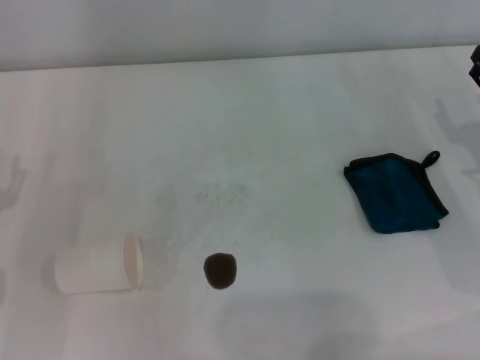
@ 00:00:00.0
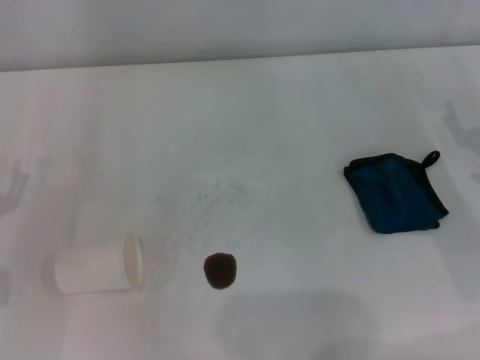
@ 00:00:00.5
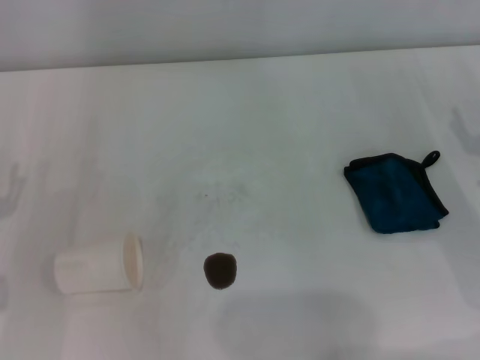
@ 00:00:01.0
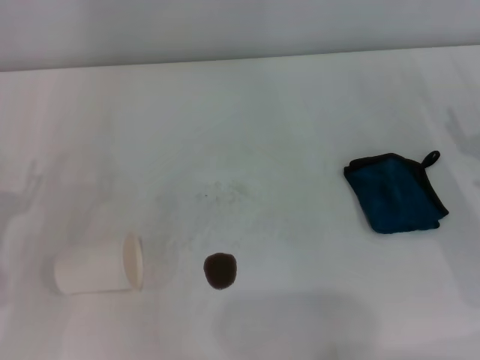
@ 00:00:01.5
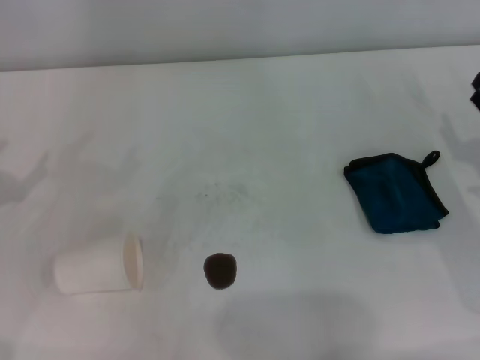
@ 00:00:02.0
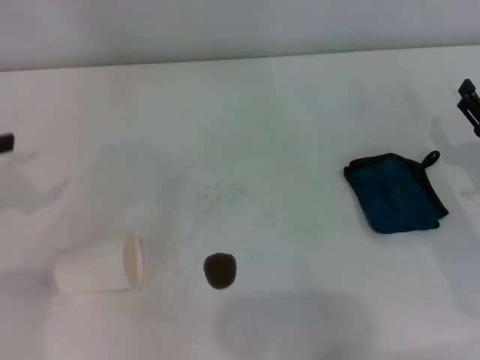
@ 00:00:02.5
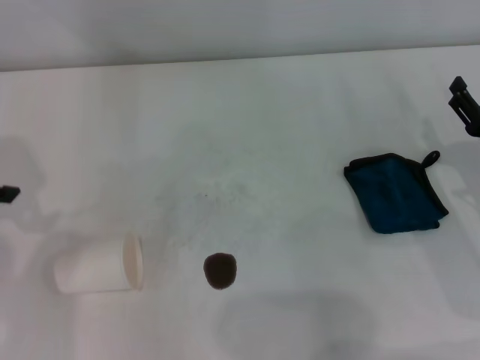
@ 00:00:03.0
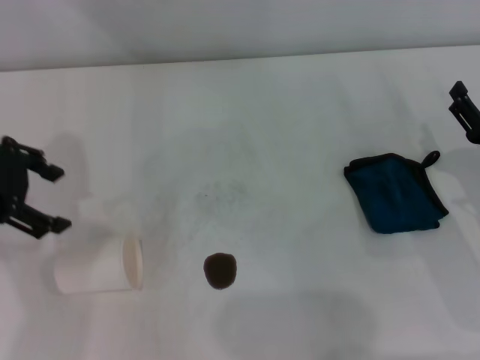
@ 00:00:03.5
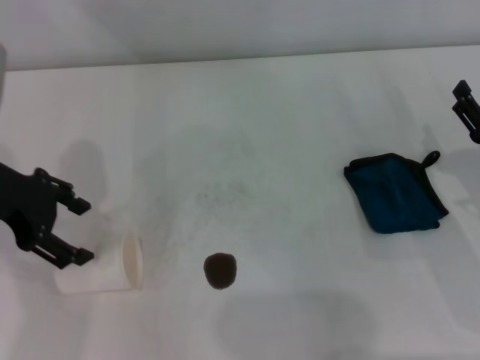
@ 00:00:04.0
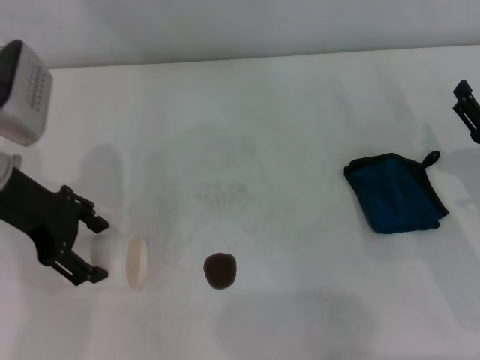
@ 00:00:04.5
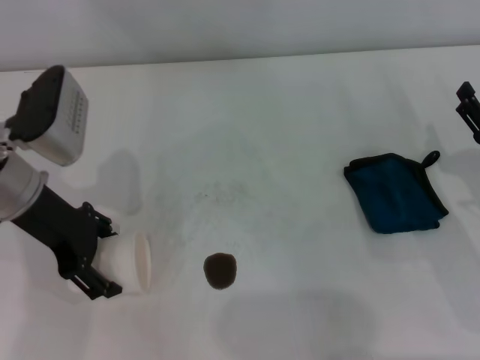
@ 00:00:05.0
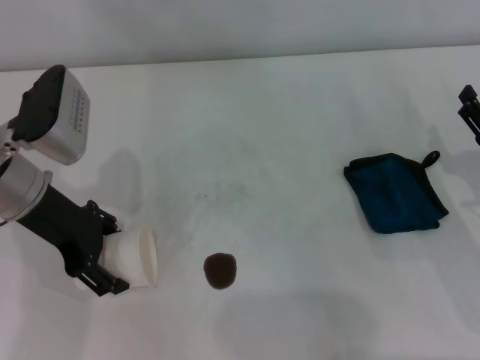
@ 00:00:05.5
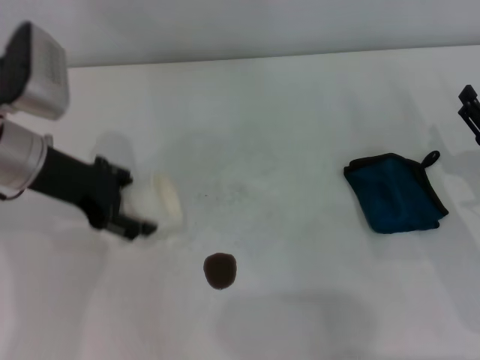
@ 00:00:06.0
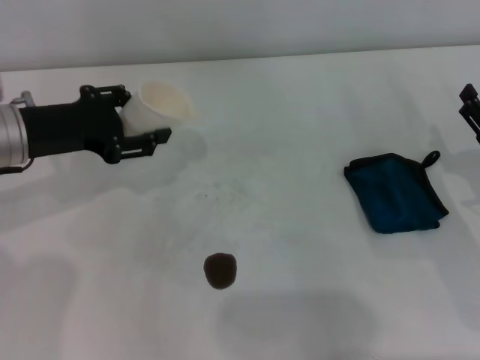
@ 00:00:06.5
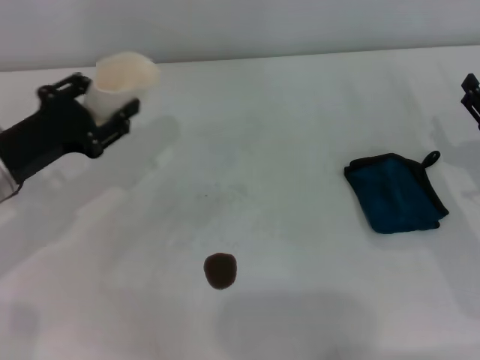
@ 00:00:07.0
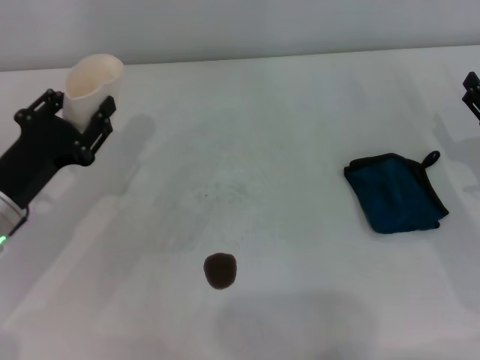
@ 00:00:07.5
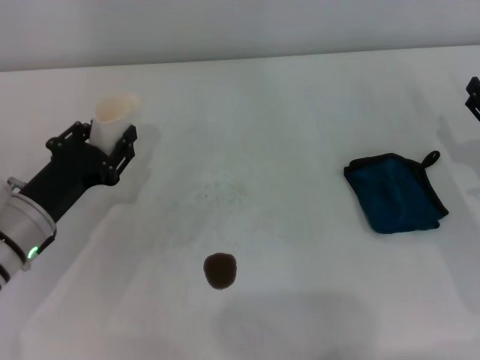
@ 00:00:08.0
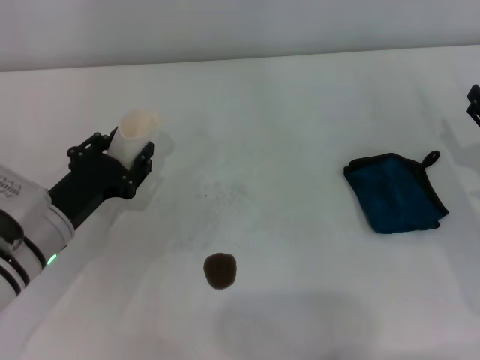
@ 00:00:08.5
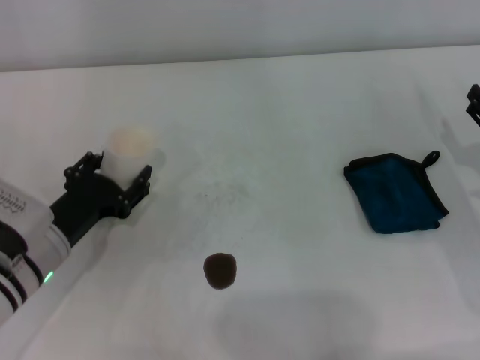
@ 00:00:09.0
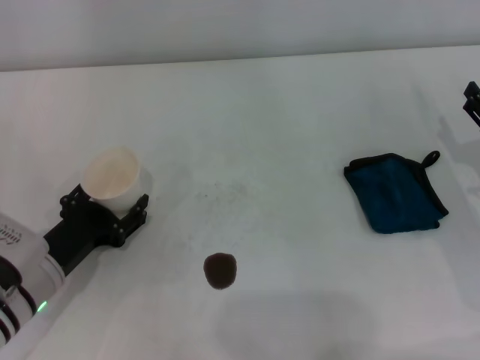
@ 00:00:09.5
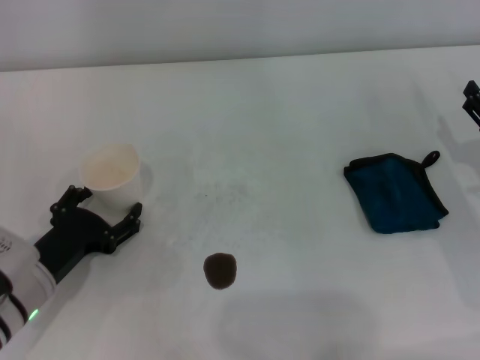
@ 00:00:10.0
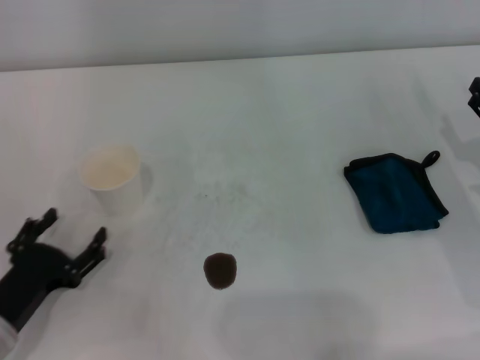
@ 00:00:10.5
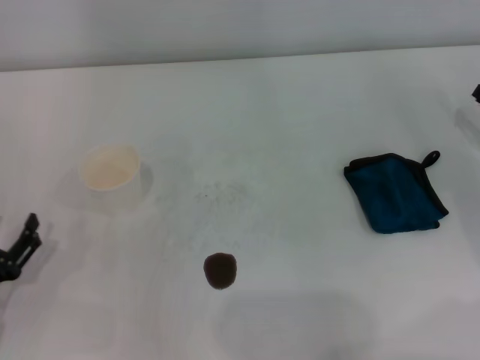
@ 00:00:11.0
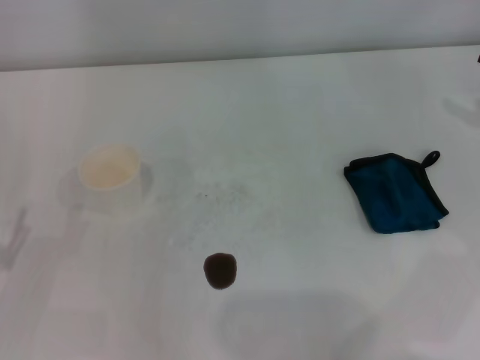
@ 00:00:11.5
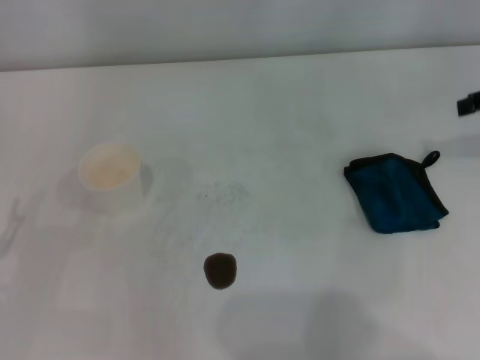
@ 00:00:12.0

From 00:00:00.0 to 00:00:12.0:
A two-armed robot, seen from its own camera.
Step, from 00:00:00.0 to 00:00:05.5: Grasp the paper cup with the left gripper.
Step, from 00:00:06.0 to 00:00:09.5: Stand the paper cup upright with the left gripper.
From 00:00:02.0 to 00:00:04.0: The left gripper goes roughly 15 cm to the right, upward and forward.
From 00:00:04.0 to 00:00:06.0: The left gripper moves some 5 cm.
From 00:00:06.0 to 00:00:08.0: The left gripper moves downward and backward, approximately 15 cm, and closes.
From 00:00:08.0 to 00:00:10.0: The left gripper changes place by approximately 5 cm, and opens its fingers.
From 00:00:10.0 to 00:00:12.0: The left gripper travels to the left and backward by about 10 cm, while the right gripper goes about 20 cm upward.

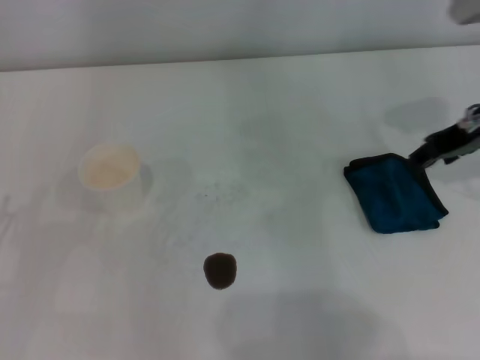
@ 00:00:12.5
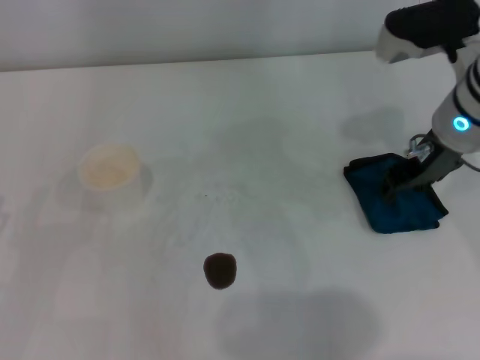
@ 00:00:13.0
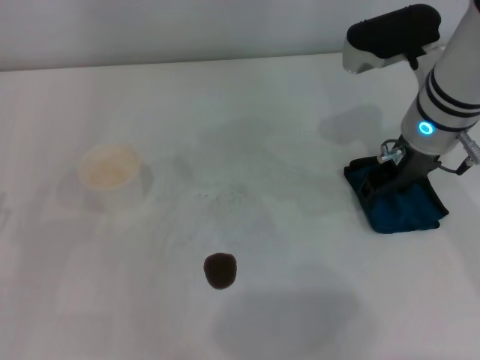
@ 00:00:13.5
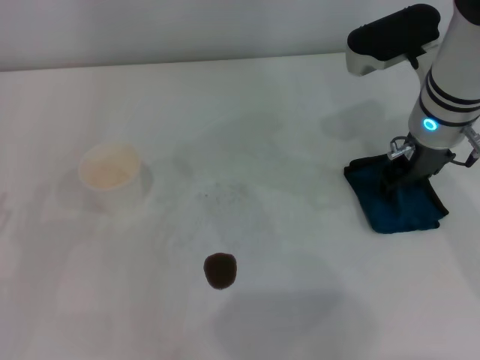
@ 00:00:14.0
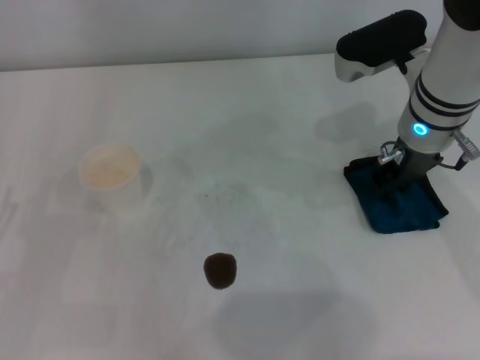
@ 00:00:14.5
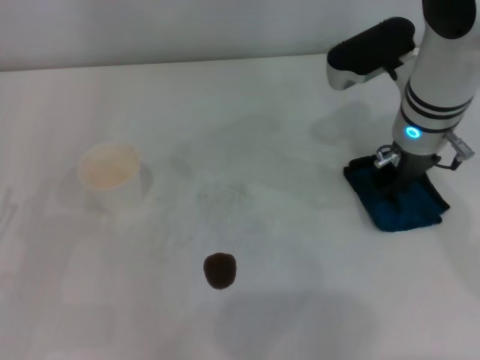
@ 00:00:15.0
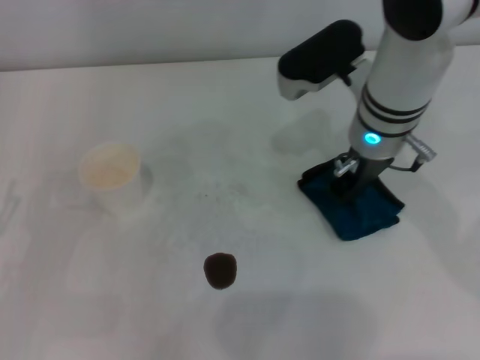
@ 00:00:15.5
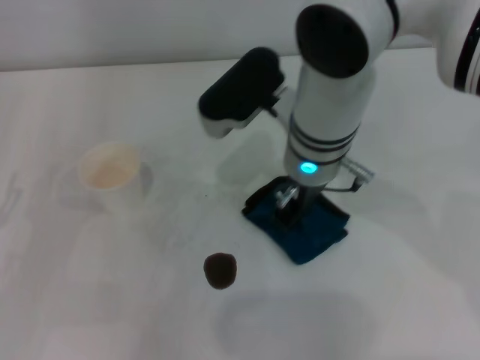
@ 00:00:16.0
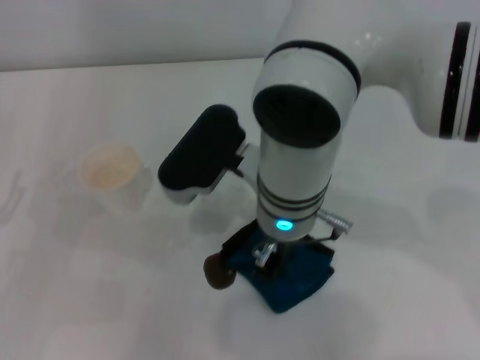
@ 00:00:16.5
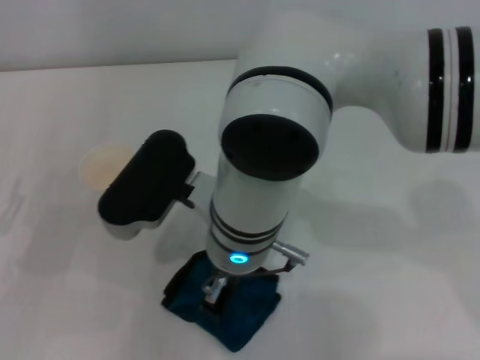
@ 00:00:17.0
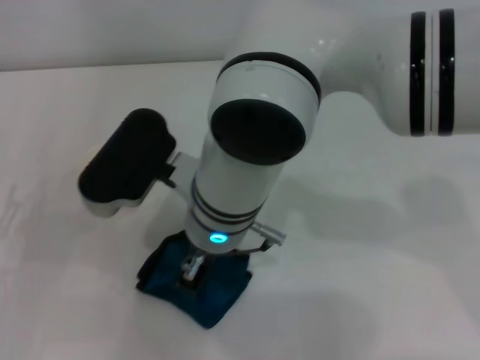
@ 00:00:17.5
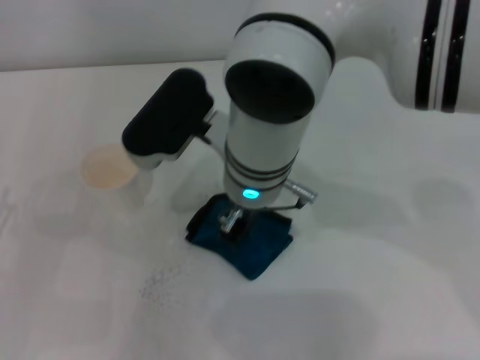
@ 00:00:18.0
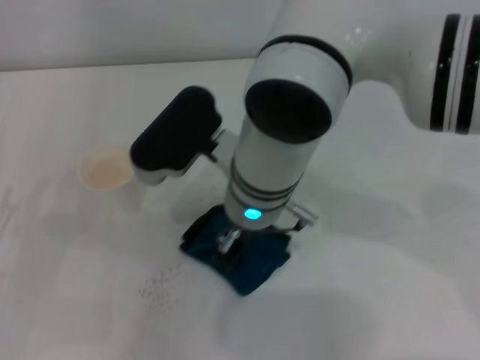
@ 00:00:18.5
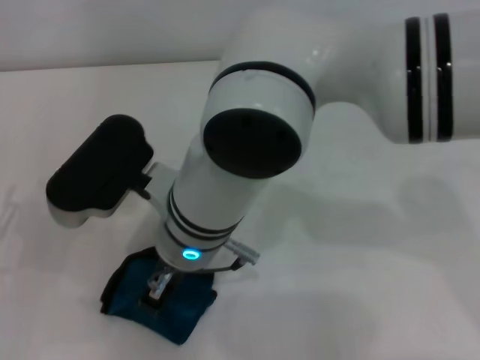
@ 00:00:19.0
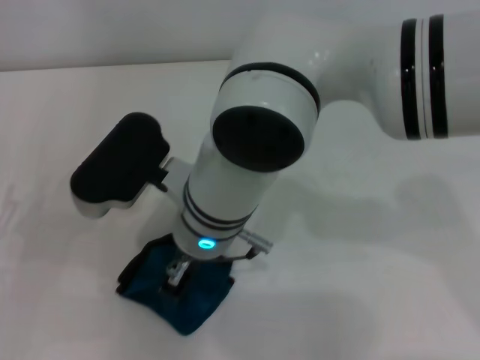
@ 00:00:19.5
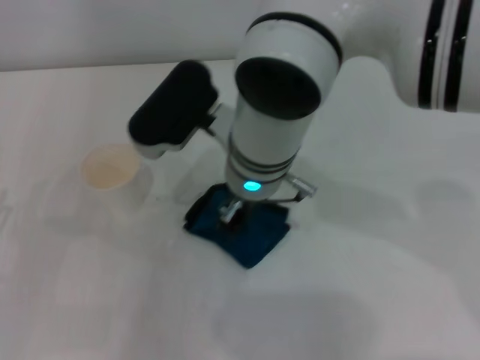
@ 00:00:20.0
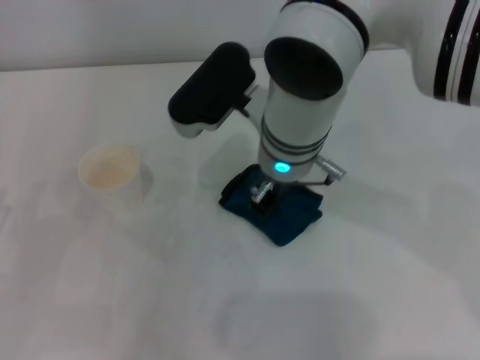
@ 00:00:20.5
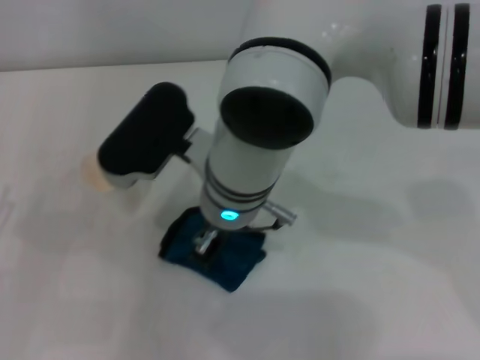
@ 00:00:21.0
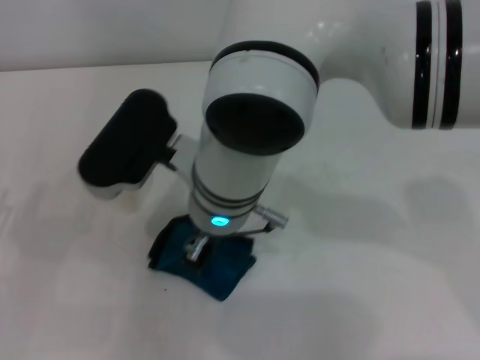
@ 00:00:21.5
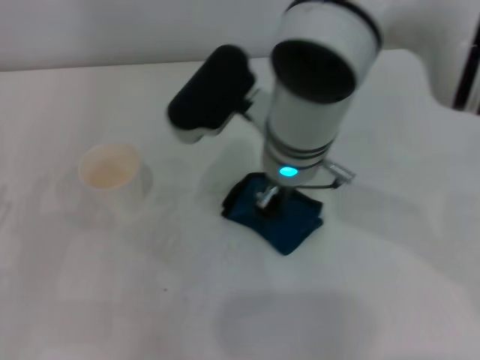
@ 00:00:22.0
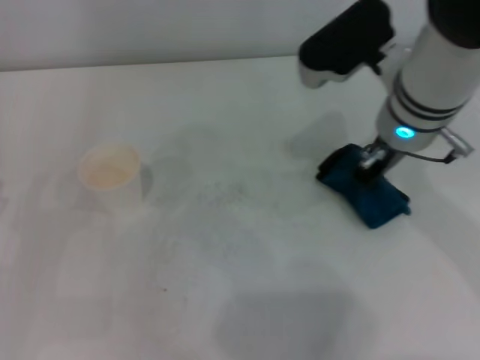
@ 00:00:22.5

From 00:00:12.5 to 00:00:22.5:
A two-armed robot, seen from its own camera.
Step, from 00:00:12.5 to 00:00:14.5: Grasp the rag with the right gripper.
From 00:00:12.5 to 00:00:14.5: The right gripper travels to the left by about 10 cm.
From 00:00:14.5 to 00:00:16.5: The right gripper heads to the left and backward, covering approximately 15 cm, and closes its fingers.
From 00:00:20.5 to 00:00:22.5: The right gripper heads to the right, covering about 10 cm.

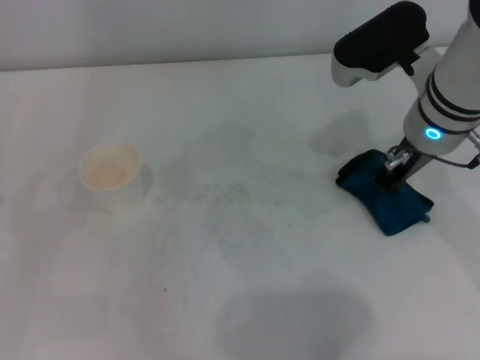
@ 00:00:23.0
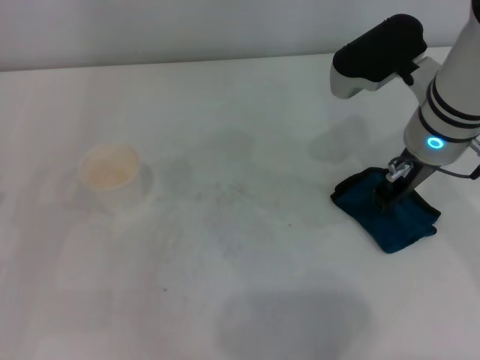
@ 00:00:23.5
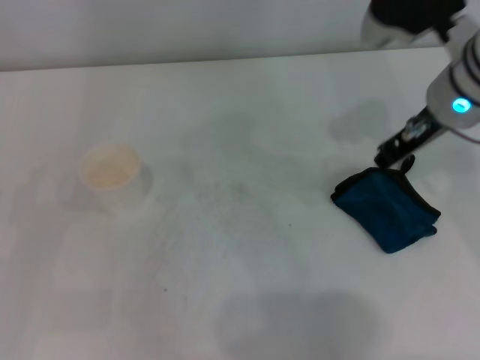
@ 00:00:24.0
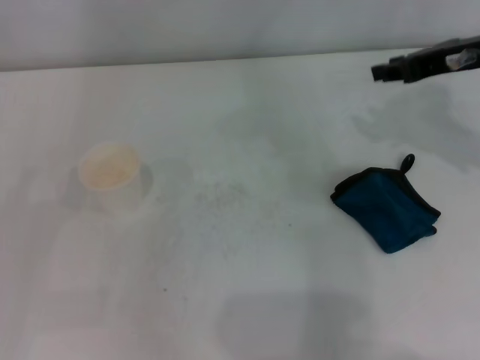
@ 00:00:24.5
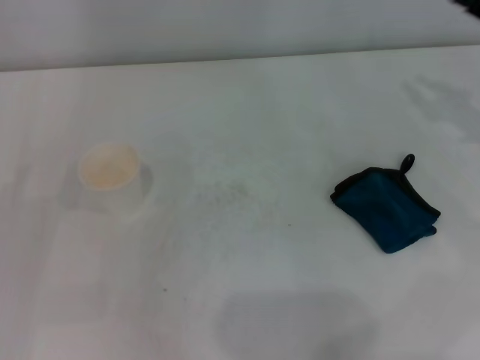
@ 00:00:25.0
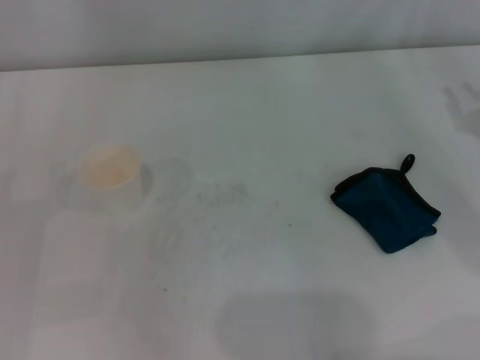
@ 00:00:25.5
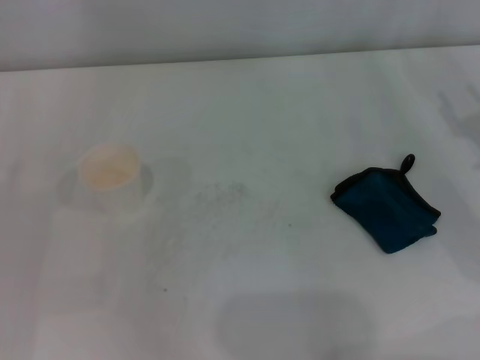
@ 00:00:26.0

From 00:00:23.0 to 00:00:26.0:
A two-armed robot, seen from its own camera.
From 00:00:23.0 to 00:00:24.5: The right gripper goes roughly 10 cm to the right, and opens up.
From 00:00:24.5 to 00:00:26.0: The right gripper shifts roughly 15 cm downward, to the right and backward.
